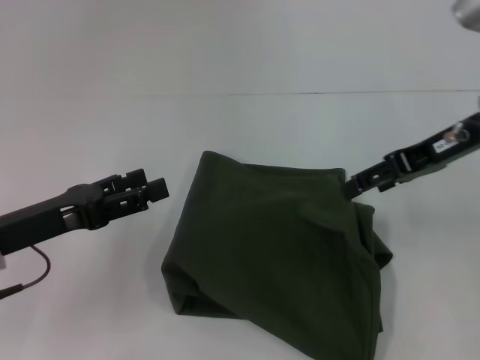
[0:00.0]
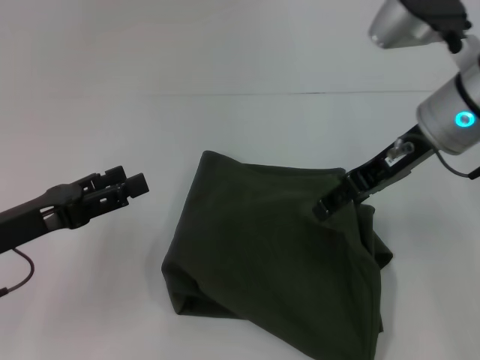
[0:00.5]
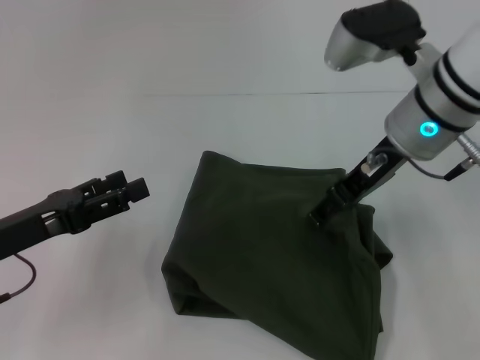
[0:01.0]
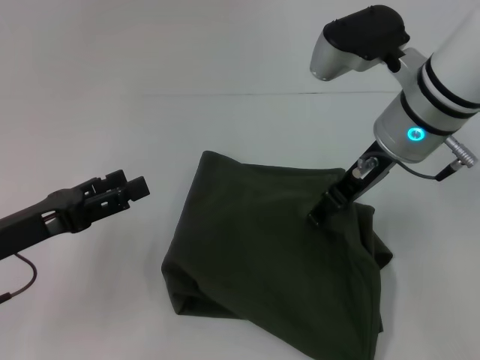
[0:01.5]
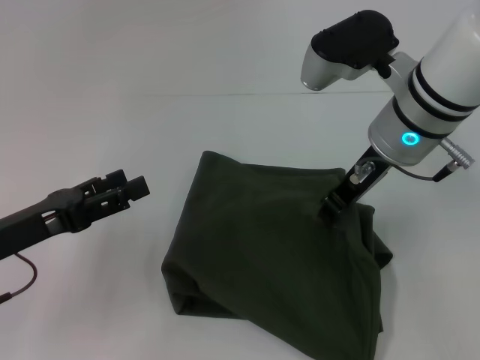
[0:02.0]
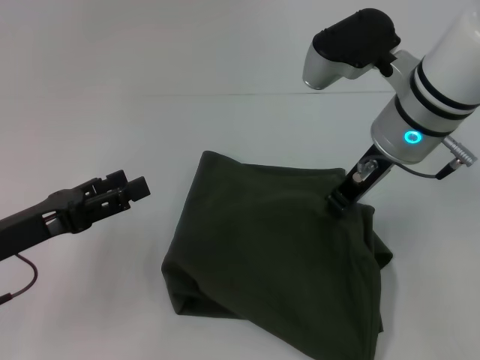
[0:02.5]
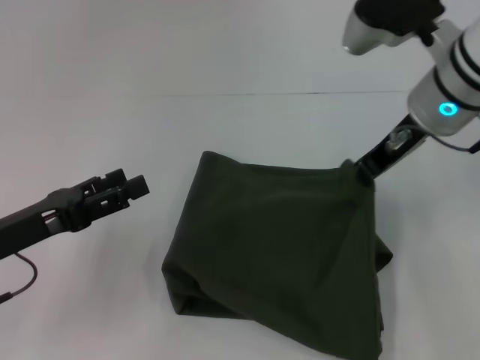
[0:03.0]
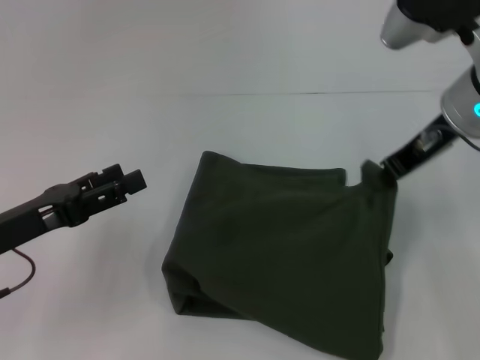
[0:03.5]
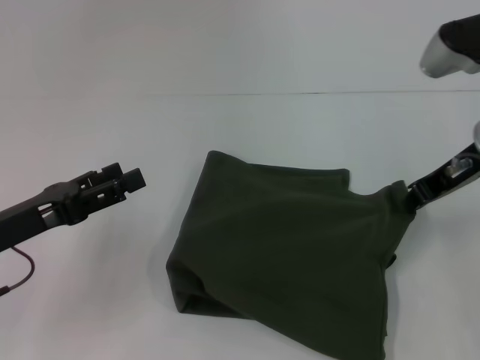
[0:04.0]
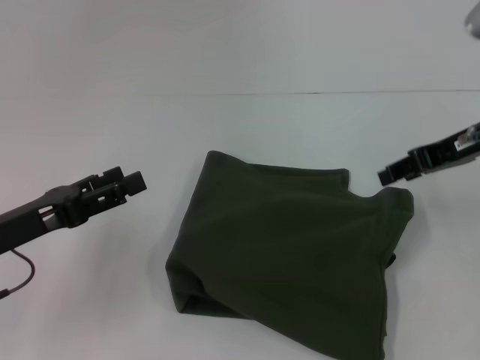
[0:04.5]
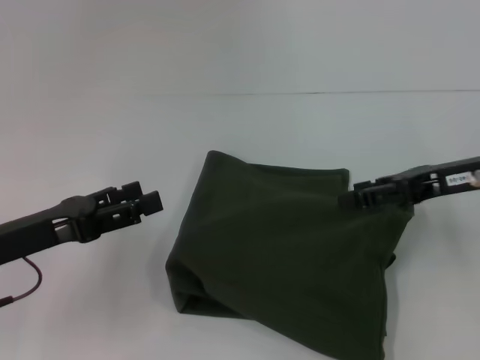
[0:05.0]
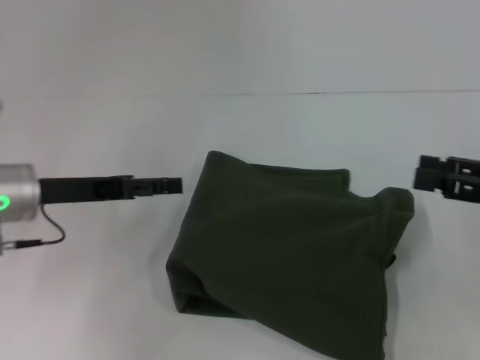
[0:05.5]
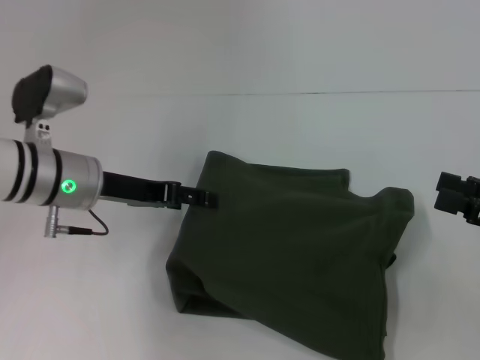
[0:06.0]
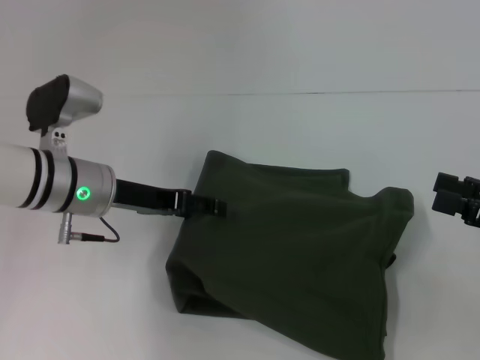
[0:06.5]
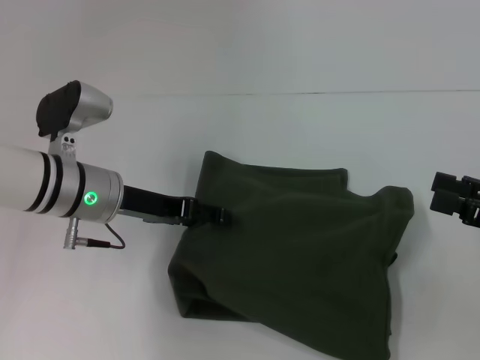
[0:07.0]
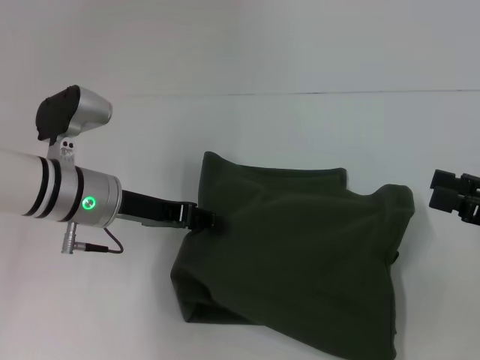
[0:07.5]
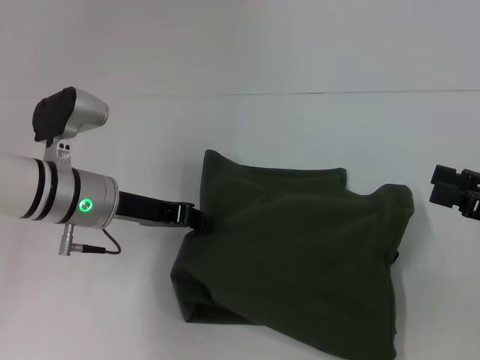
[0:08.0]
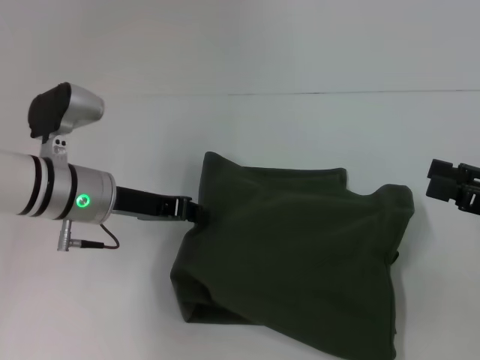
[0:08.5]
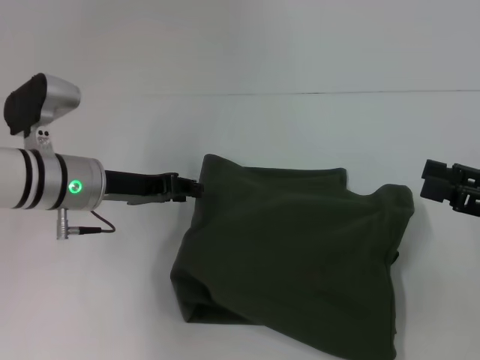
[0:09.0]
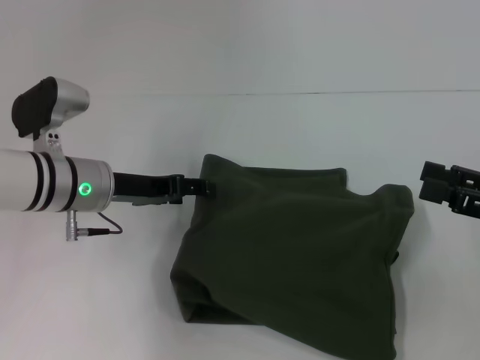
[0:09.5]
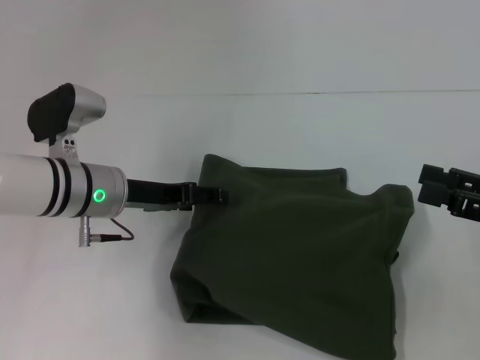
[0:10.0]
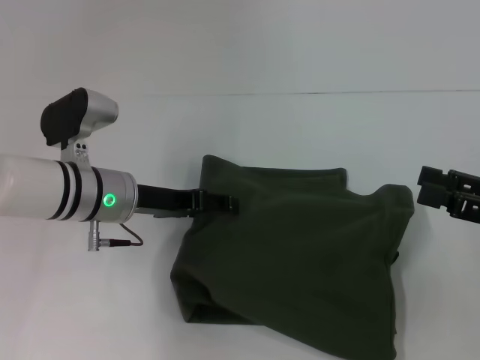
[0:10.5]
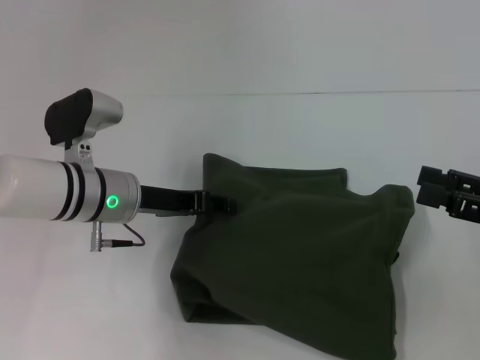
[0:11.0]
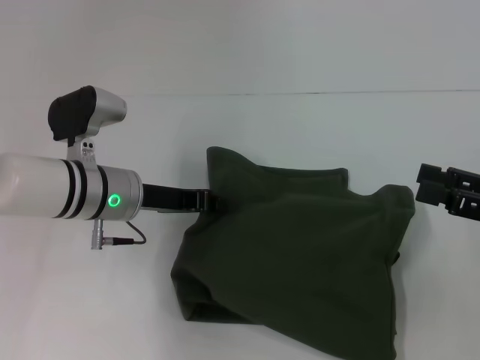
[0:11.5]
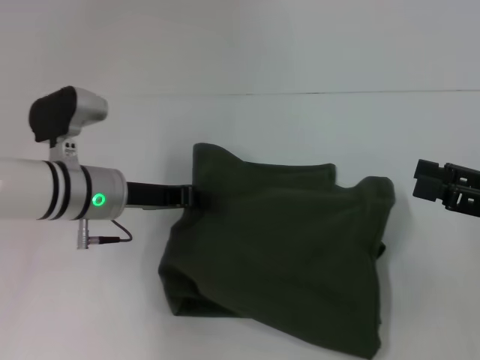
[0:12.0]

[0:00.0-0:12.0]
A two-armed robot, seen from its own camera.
Step, 0:00.0 to 0:06.5: Fold the clothes with your left hand.
0:00.0 to 0:02.0: The right gripper shifts approximately 10 cm to the left, and closes.
0:02.0 to 0:04.0: The right gripper heads to the right, covering roughly 10 cm, and closes.
0:04.0 to 0:06.0: The left gripper is displaced forward and to the right by roughly 15 cm. Meanwhile the right gripper travels backward, to the right and downward by approximately 20 cm, and opens.
0:06.0 to 0:08.0: The left gripper closes up.
0:08.0 to 0:10.0: The left gripper opens.
0:10.0 to 0:12.0: The left gripper closes.

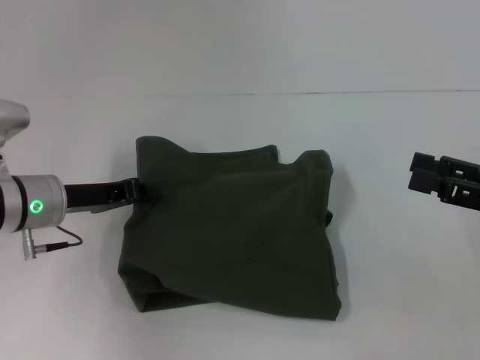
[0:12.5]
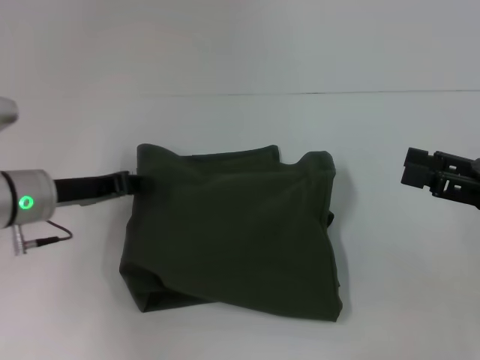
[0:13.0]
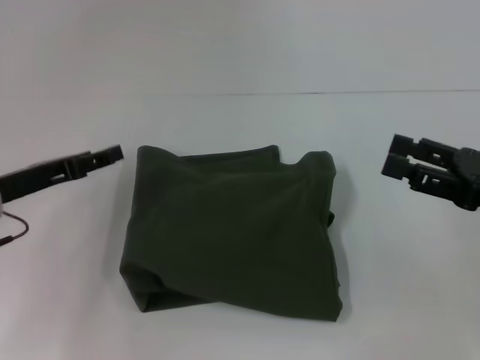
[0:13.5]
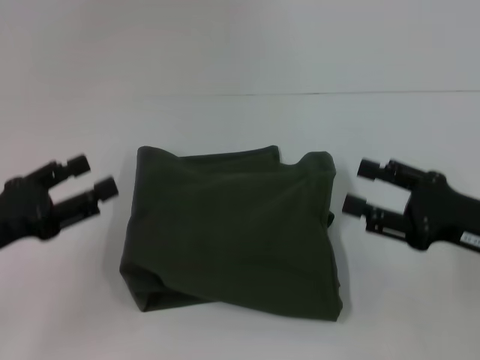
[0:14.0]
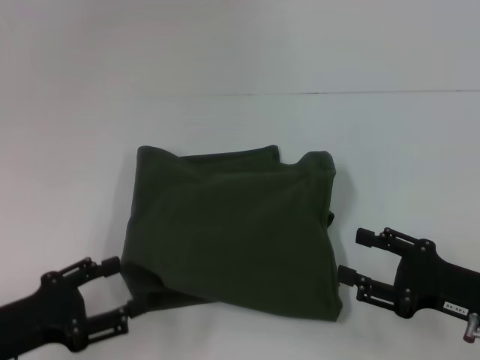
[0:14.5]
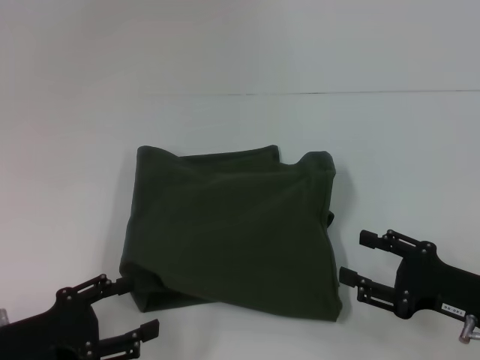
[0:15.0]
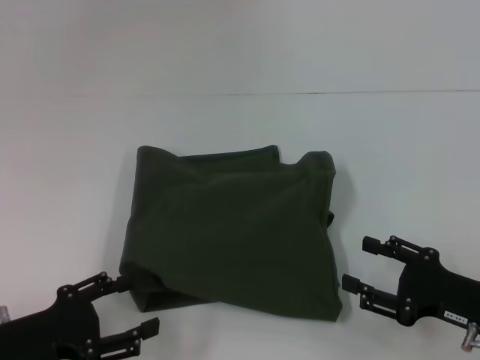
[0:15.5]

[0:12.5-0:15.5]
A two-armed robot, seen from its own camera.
0:12.5 to 0:14.0: The left gripper moves backward and to the left, some 15 cm, and opens; the right gripper changes place by roughly 5 cm.
0:14.0 to 0:15.5: Both grippers travel together downward, roughly 5 cm.

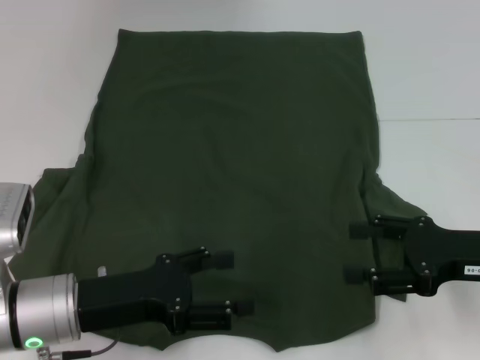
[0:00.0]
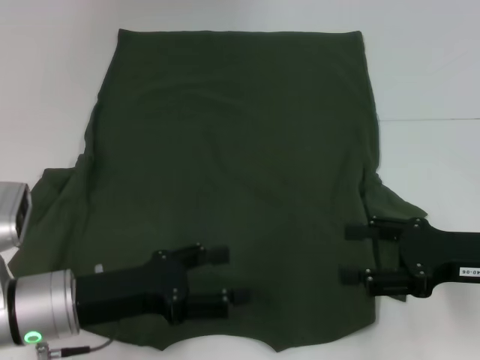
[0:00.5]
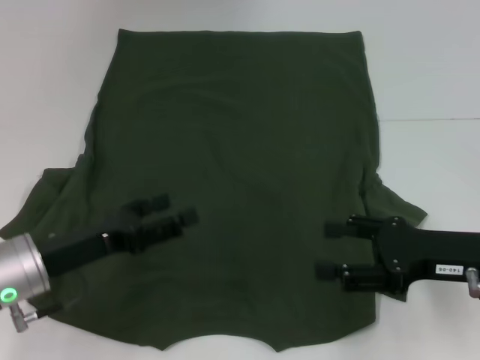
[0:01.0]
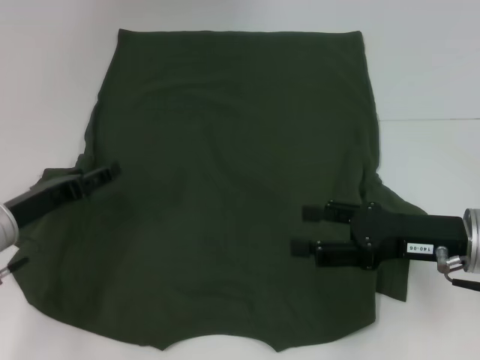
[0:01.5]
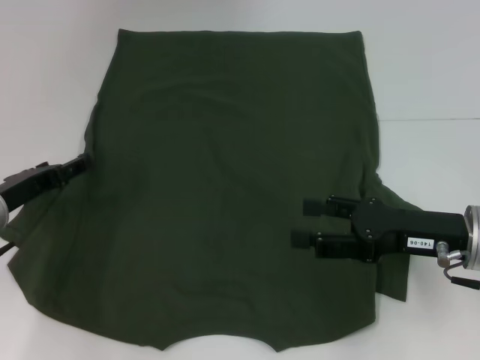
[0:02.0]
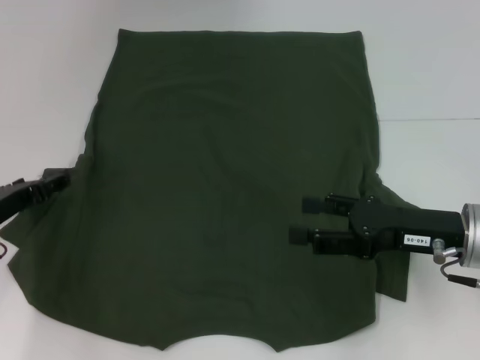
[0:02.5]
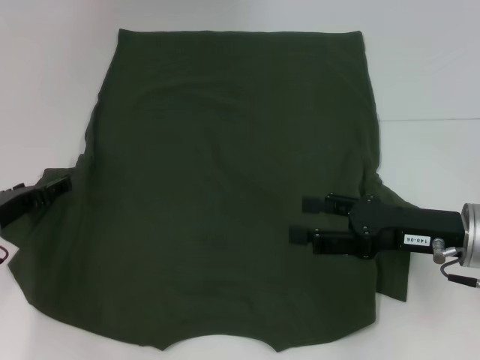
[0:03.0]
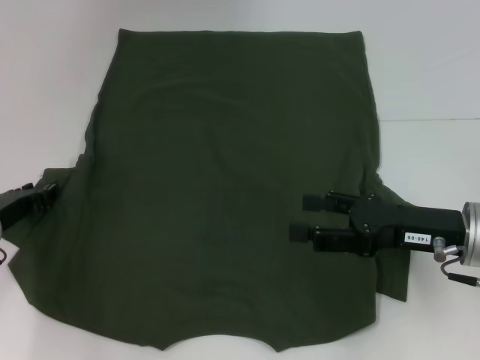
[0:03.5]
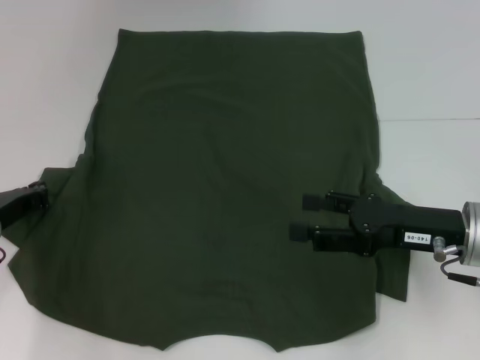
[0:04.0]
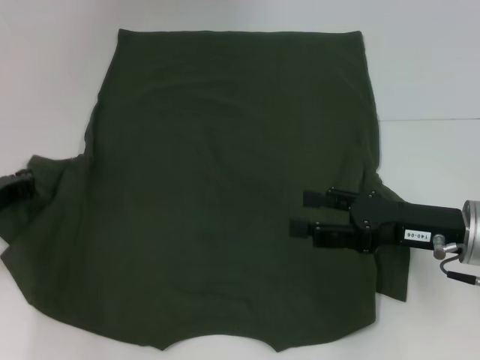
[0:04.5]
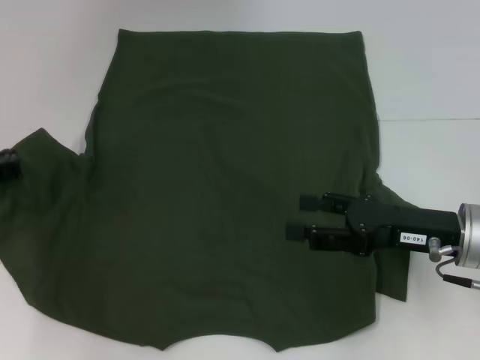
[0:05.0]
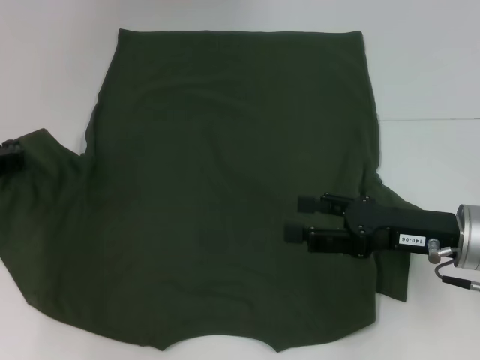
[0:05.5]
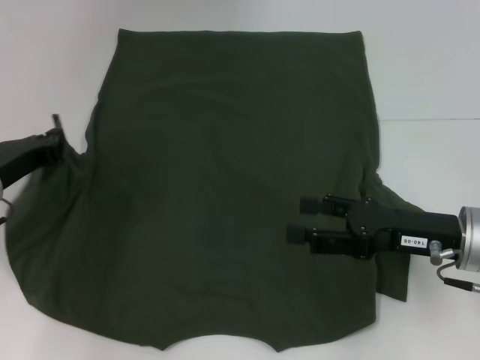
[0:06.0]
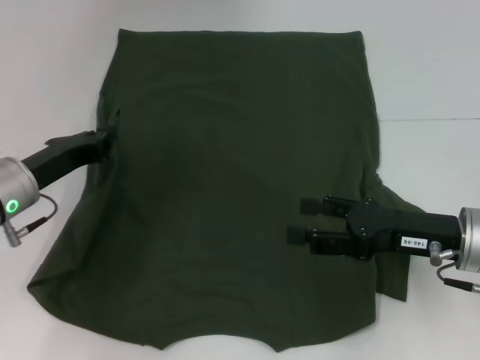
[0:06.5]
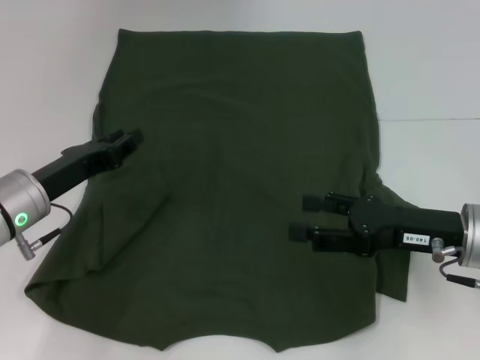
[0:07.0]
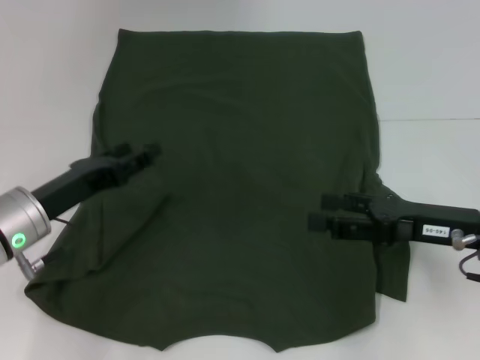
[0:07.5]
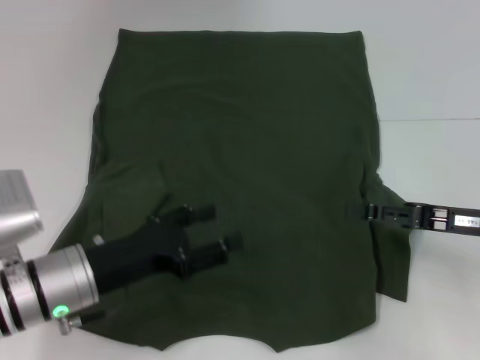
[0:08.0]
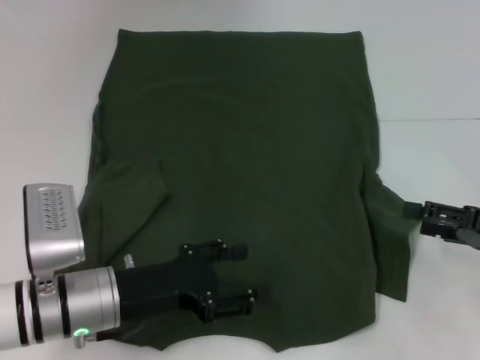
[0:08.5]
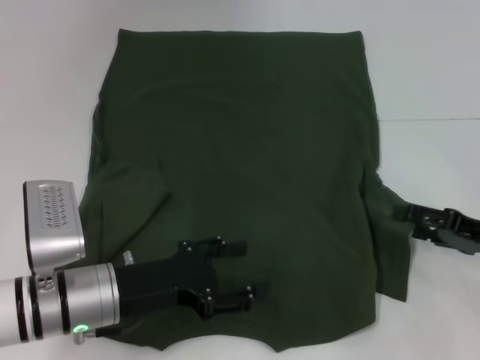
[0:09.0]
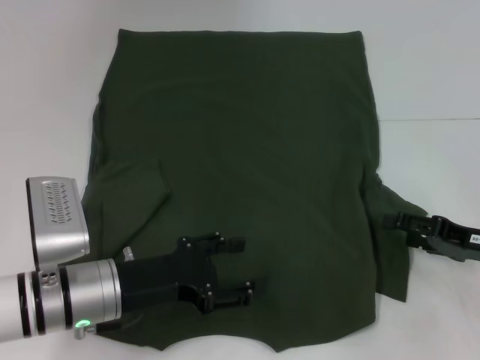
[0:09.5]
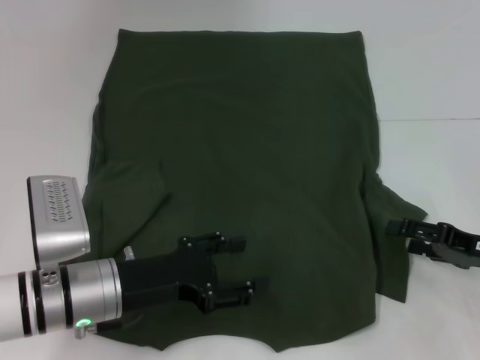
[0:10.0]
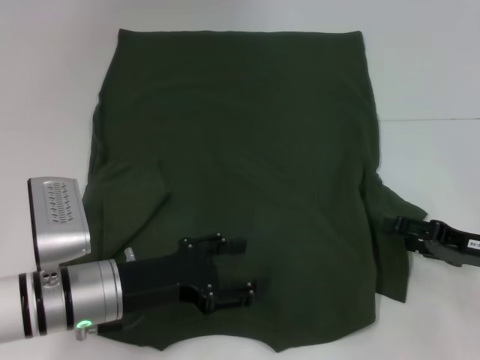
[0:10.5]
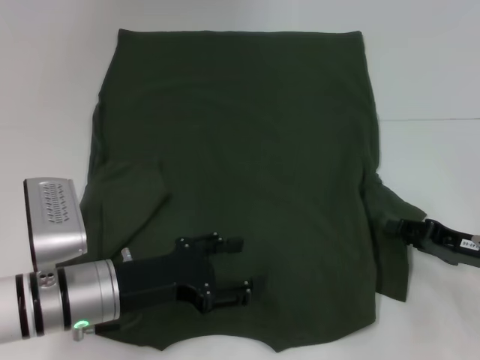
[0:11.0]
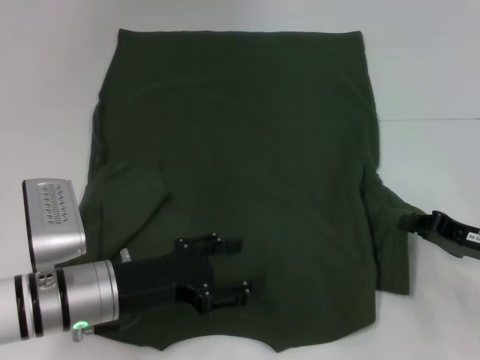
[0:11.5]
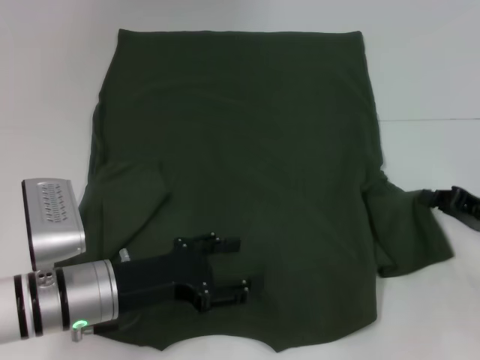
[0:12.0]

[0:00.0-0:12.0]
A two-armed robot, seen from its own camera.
Step, 0:00.0 to 0:06.5: Fold the bottom left sleeve with your left hand.
0:00.0 to 0:02.0: The left gripper heads forward and to the left, covering some 15 cm.
0:02.0 to 0:04.0: The left gripper closes up.
0:04.0 to 0:06.0: There are only small adjustments of the grippers.
0:06.0 to 0:08.0: The right gripper moves to the right, some 5 cm; the left gripper shifts roughly 10 cm to the right and backward, and opens up.
0:08.0 to 0:10.0: The right gripper travels downward by some 5 cm.
0:10.0 to 0:12.0: The right gripper closes its fingers.
